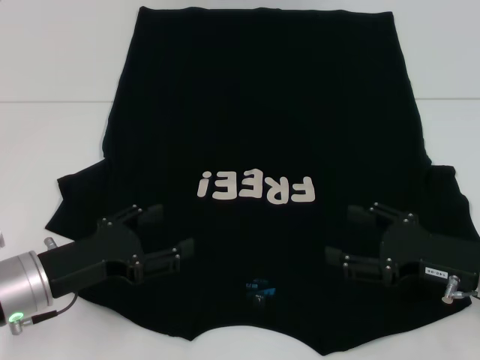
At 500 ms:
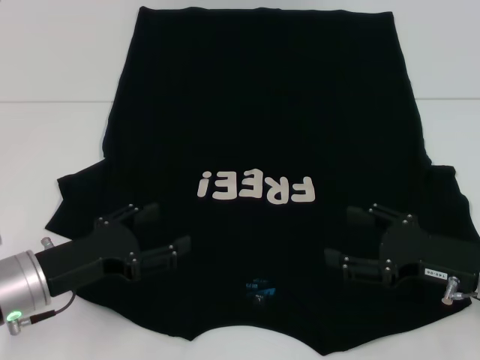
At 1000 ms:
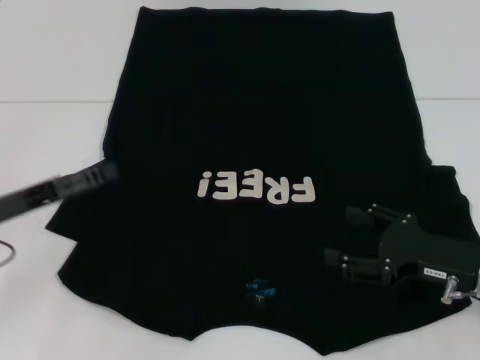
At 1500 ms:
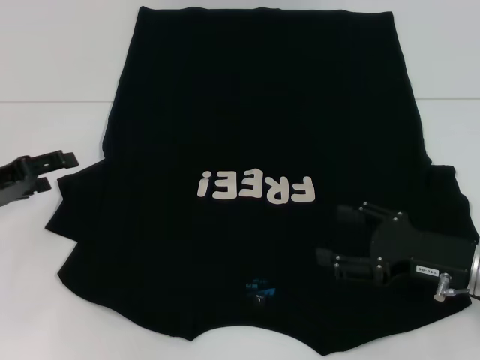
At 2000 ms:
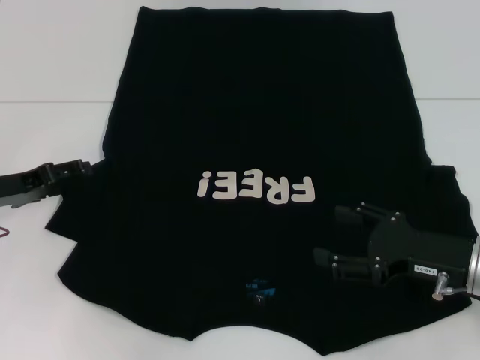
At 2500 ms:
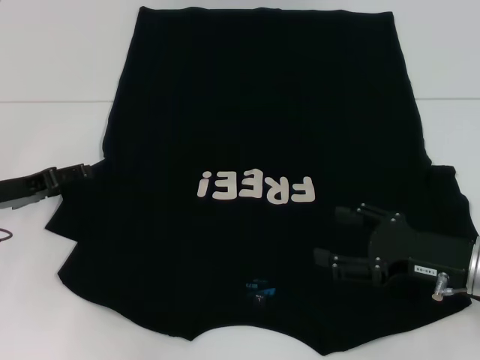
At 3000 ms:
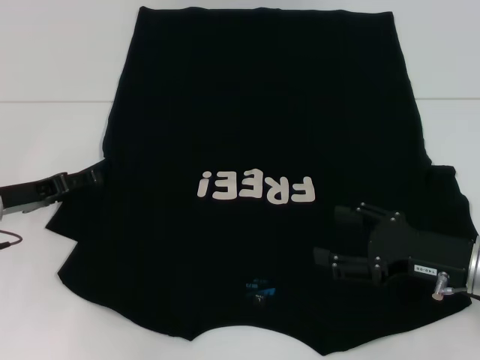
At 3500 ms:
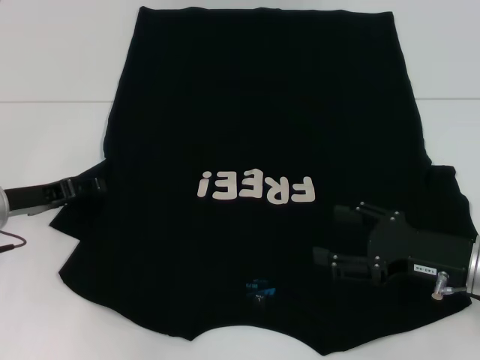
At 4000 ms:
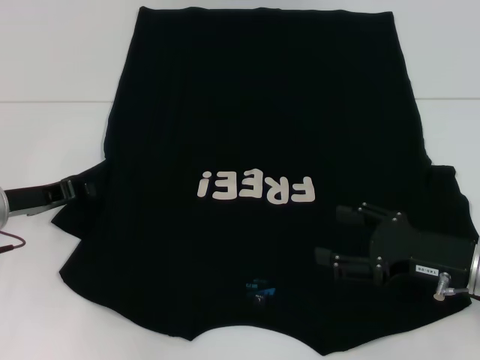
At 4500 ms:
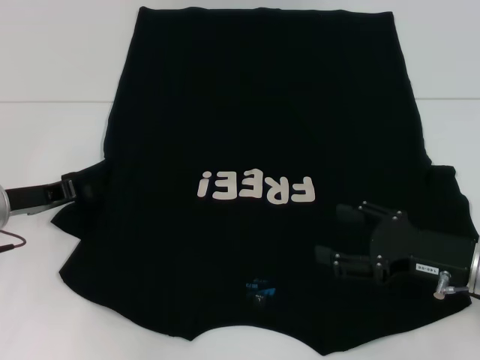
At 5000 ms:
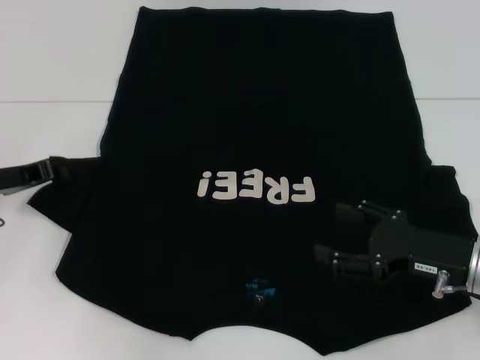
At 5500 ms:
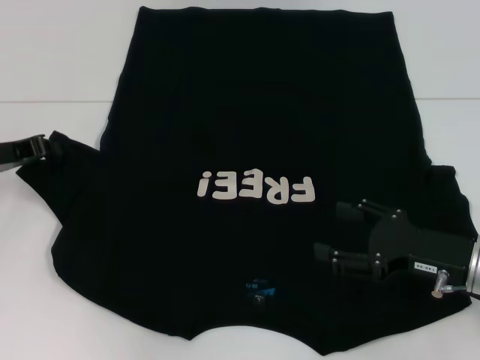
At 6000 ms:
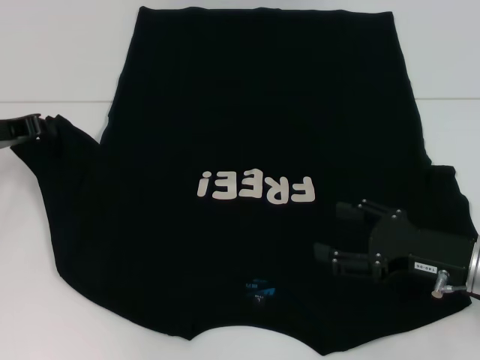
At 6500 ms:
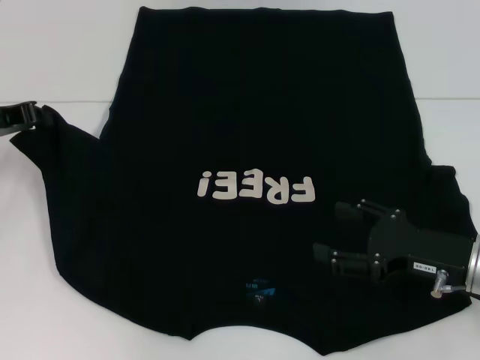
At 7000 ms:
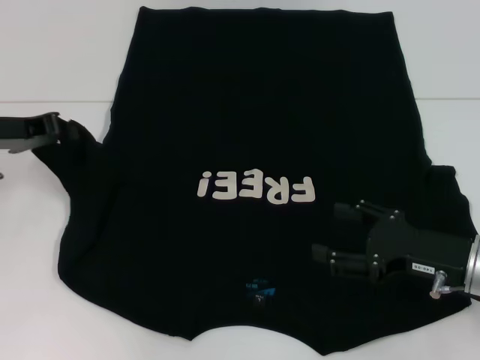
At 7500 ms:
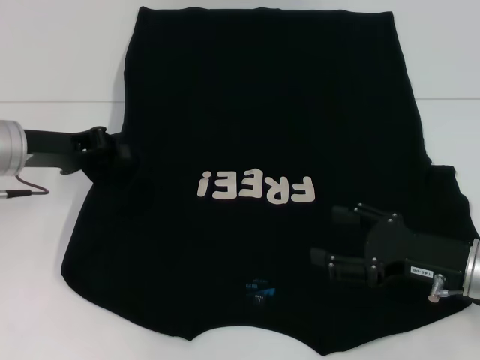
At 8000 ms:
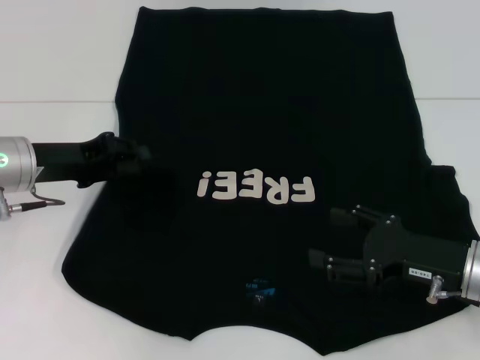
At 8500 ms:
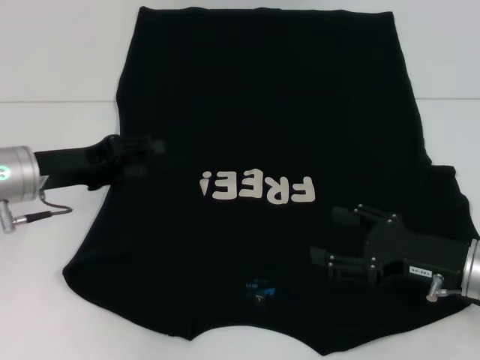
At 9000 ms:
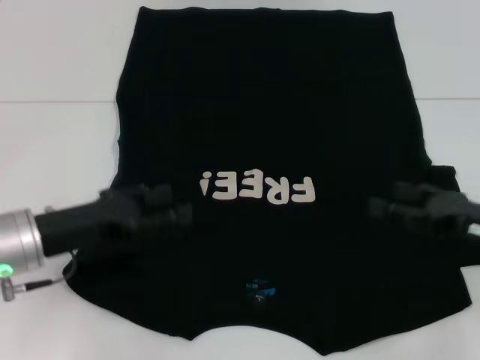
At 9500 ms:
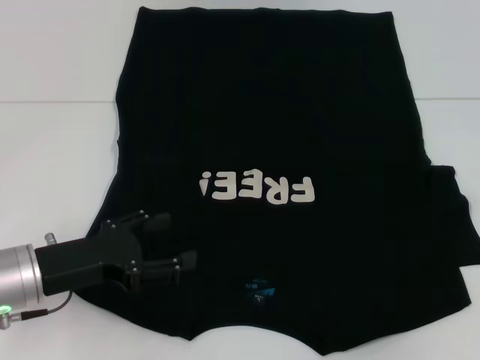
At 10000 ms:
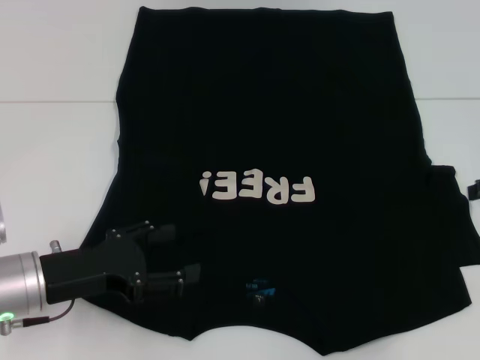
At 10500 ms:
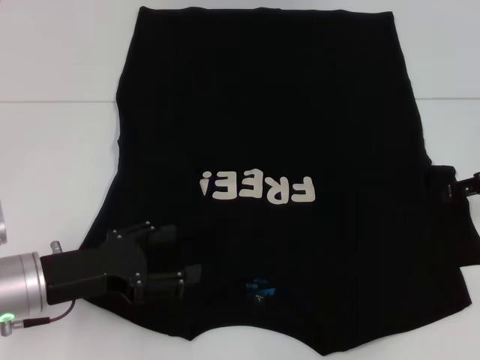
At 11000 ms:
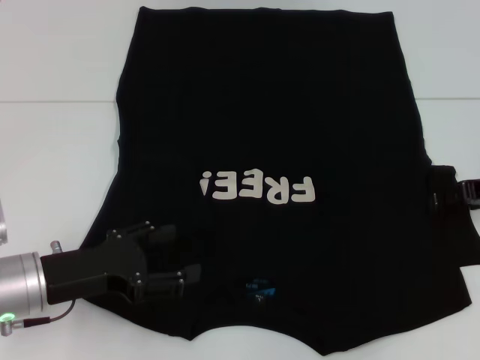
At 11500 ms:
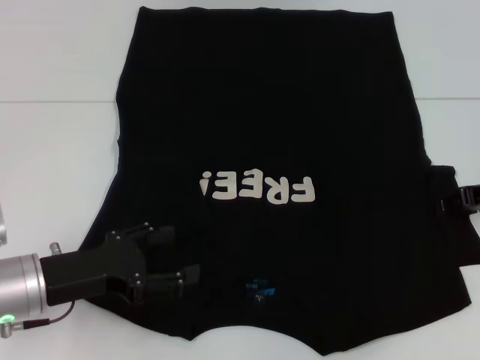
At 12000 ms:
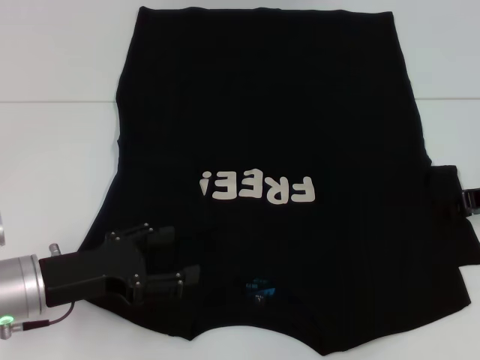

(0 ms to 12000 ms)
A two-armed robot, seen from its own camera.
Step, 0 ms - 8000 ms: Fold the bottom left sleeve with your left hand.
0 ms - 2000 ms: The left gripper moves forward and to the left, roughly 10 cm.
2000 ms - 4000 ms: The left gripper closes its fingers.
4000 ms - 6000 ms: The left gripper heads upward, covering approximately 5 cm, and closes its fingers.
6000 ms - 8000 ms: The left gripper goes approximately 5 cm to the right.
8000 ms - 10000 ms: The right gripper moves to the right, upward and forward, about 20 cm, while the left gripper shifts approximately 10 cm backward and downward, and opens up.

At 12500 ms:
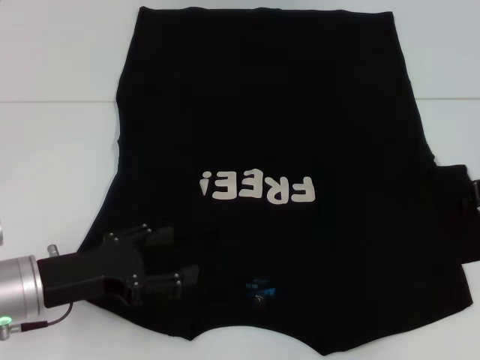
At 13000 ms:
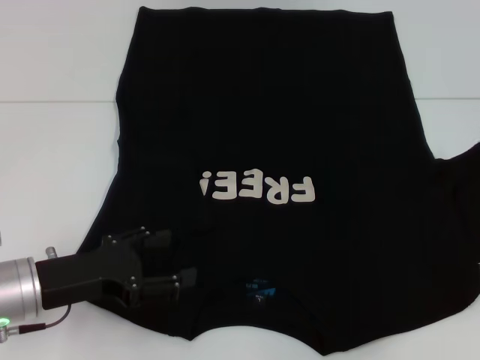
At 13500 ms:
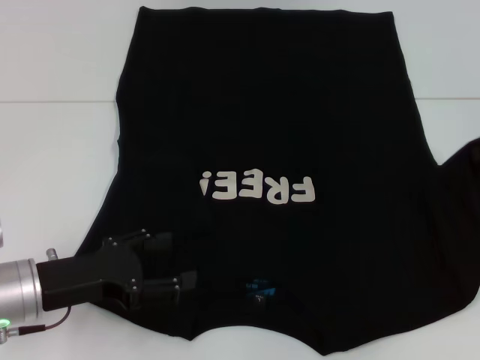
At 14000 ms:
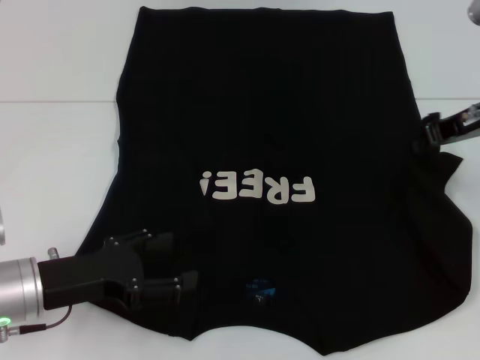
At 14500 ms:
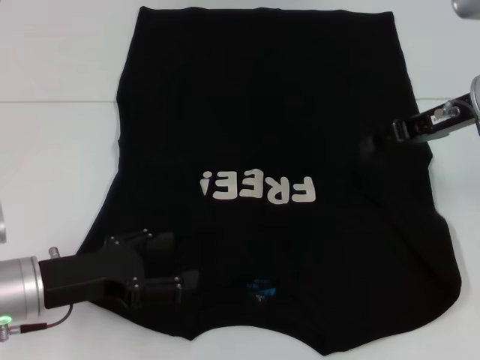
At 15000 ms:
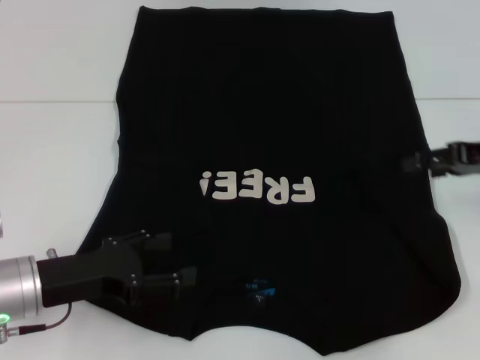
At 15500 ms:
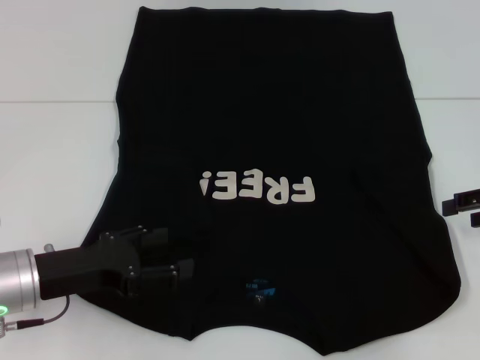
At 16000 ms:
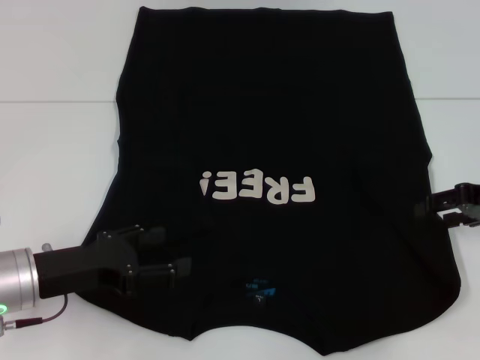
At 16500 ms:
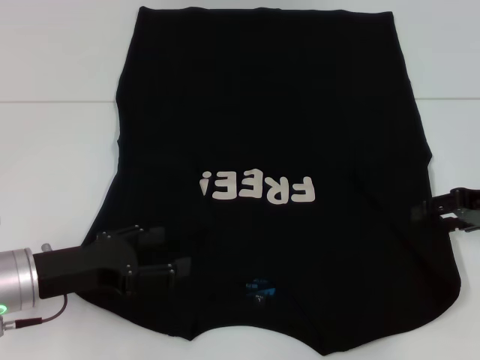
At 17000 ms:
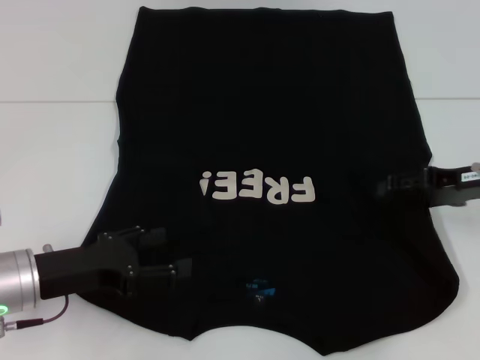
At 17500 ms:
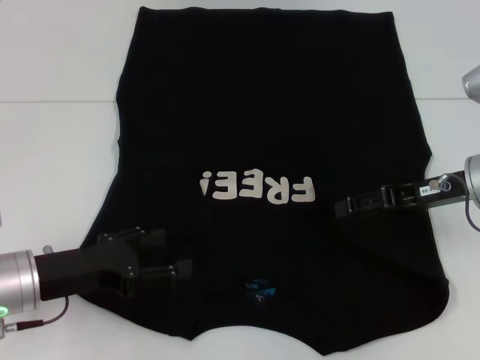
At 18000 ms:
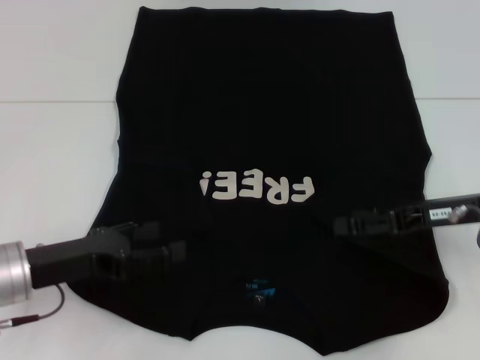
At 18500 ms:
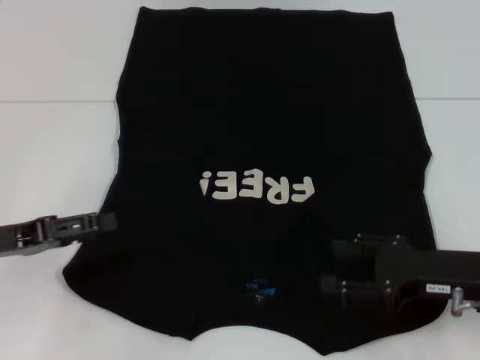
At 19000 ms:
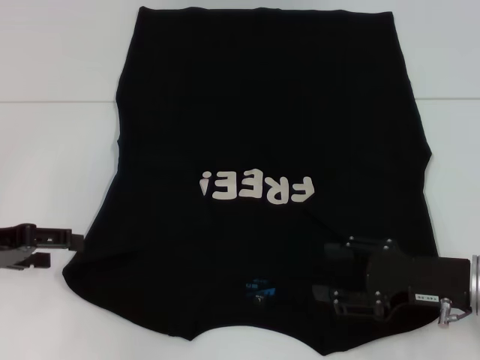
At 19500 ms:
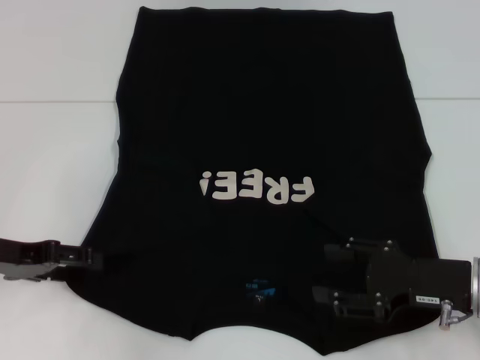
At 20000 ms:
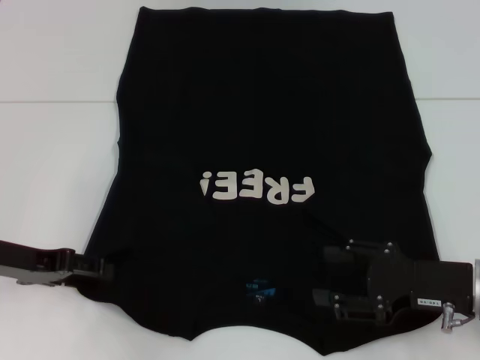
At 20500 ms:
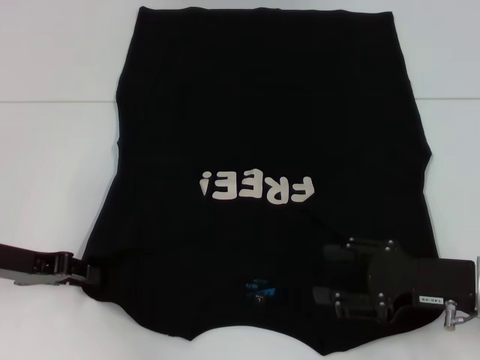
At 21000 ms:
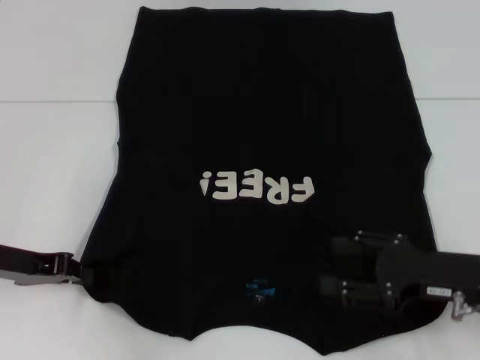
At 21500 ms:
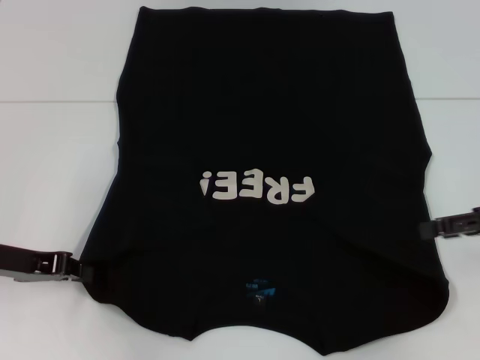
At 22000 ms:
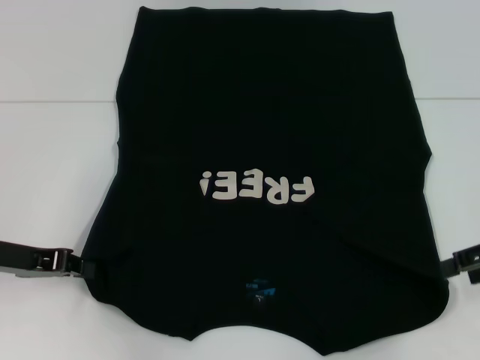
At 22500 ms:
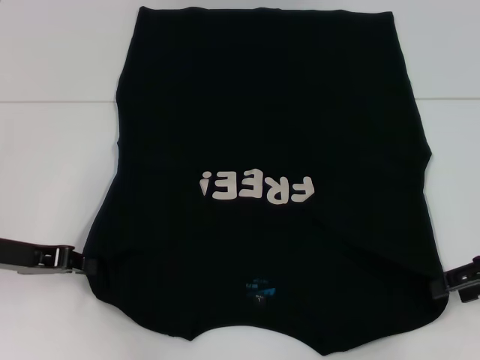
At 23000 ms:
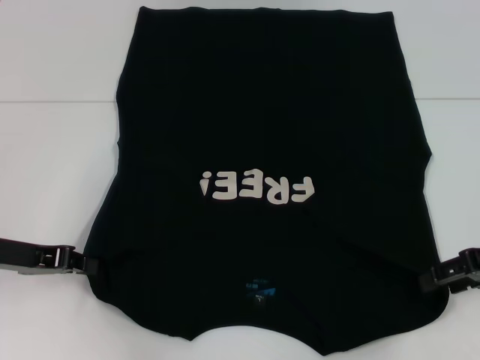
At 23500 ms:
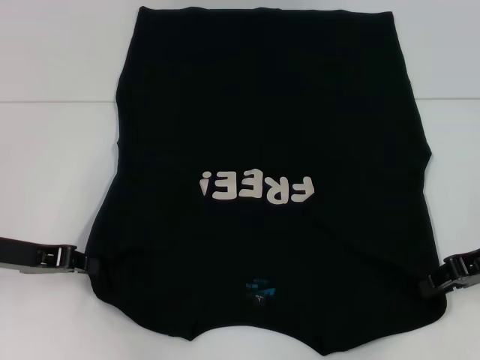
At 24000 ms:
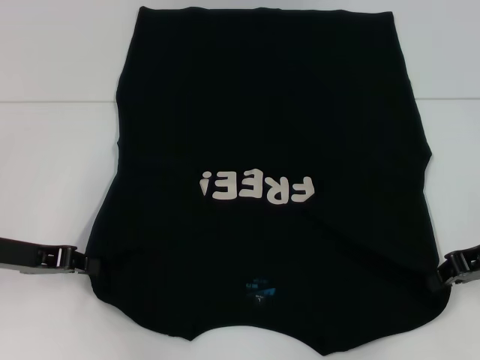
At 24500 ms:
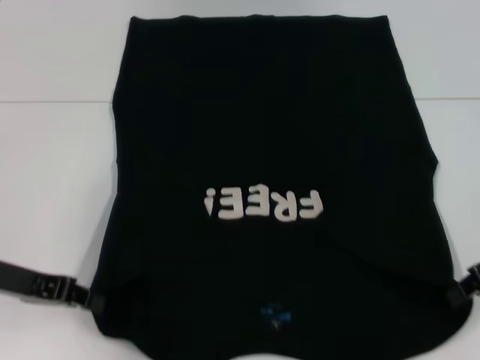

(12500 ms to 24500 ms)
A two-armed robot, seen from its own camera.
Step, 12500 ms - 17000 ms: Fold the bottom right sleeve with your right hand.
Step, 17500 ms - 20500 ms: Grab the bottom left corner with your left hand.
Step, 21000 ms - 24000 ms: Grab the bottom right corner with your right hand.
12500 ms - 14500 ms: The right gripper travels to the left and upward by about 10 cm.
14500 ms - 16500 ms: The right gripper shifts some 10 cm to the right, downward and backward, and opens its fingers.
16500 ms - 18500 ms: The left gripper is displaced to the left by some 5 cm; the right gripper is displaced backward, to the left and downward by roughly 10 cm.
20500 ms - 22500 ms: The right gripper heads to the right and upward, covering roughly 10 cm, while the left gripper closes.
22500 ms - 24500 ms: The right gripper closes its fingers.

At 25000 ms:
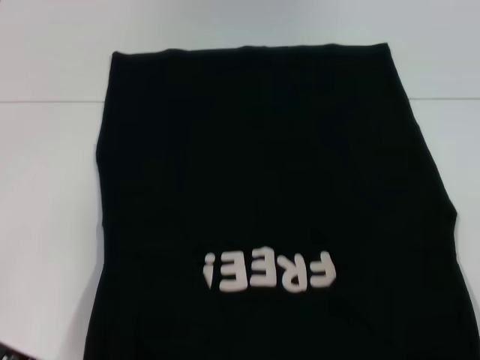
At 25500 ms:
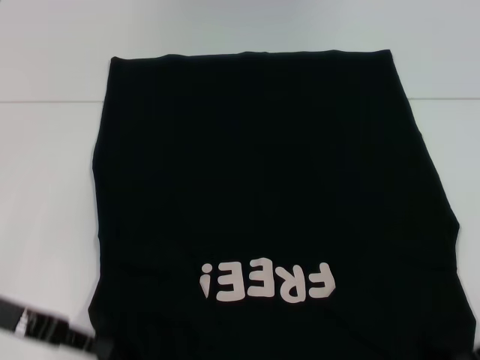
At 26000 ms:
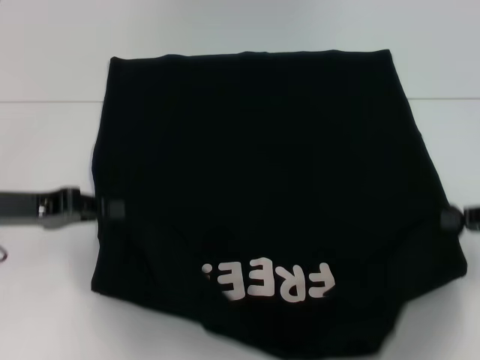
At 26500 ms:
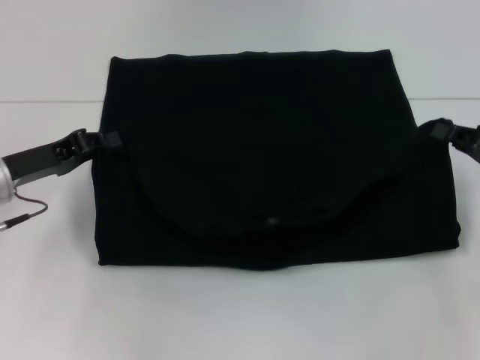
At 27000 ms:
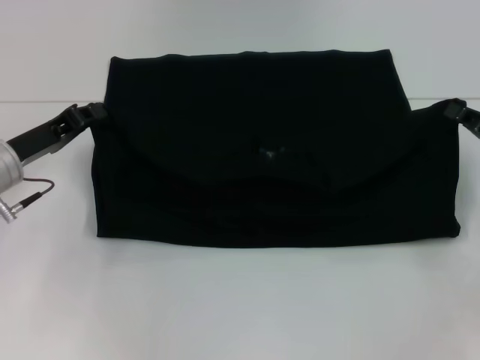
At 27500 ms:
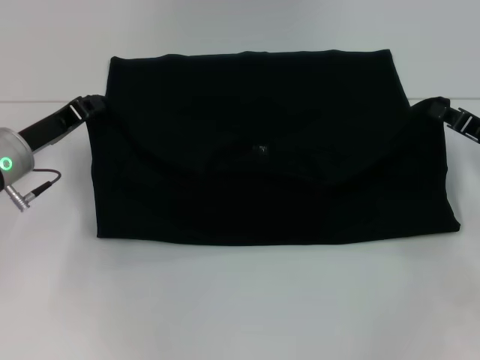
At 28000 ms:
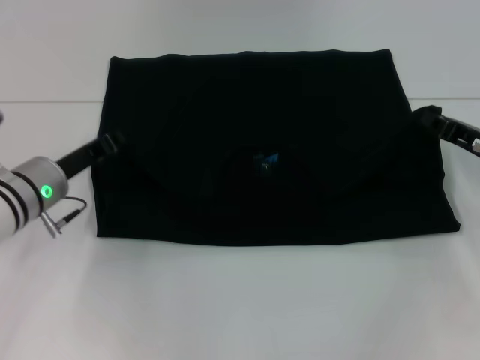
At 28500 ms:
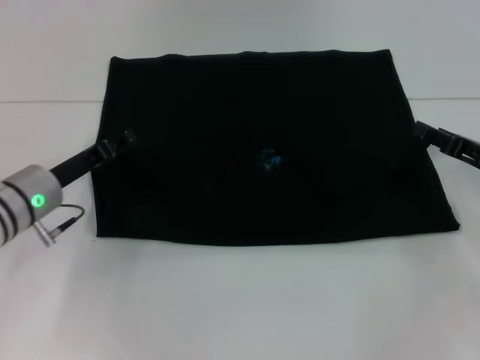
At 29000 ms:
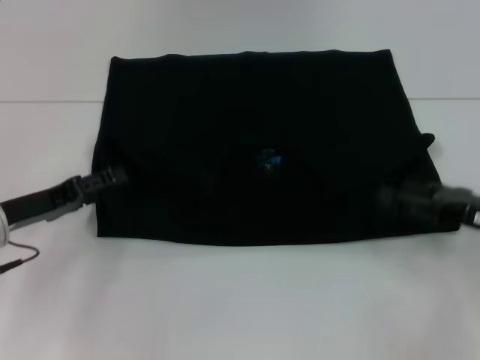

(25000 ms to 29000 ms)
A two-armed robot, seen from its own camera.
Step, 25000 ms - 28500 ms: Fold the clothes with your left hand.
Step, 25000 ms - 28500 ms: Fold the clothes with your right hand.
25000 ms - 27000 ms: The right gripper goes some 5 cm forward. Meanwhile the left gripper shifts roughly 10 cm forward.
27000 ms - 29000 ms: The left gripper moves some 5 cm, and opens its fingers. Meanwhile the right gripper opens.
